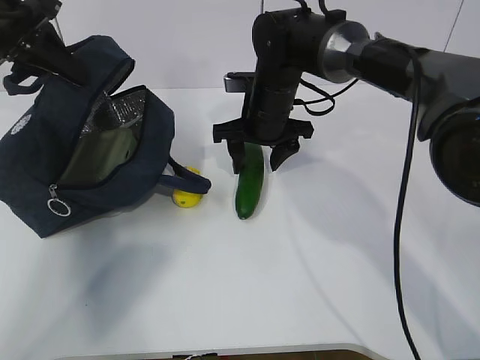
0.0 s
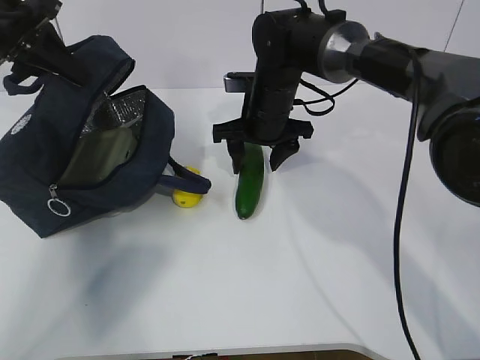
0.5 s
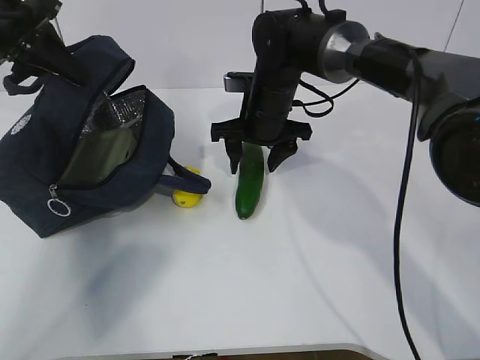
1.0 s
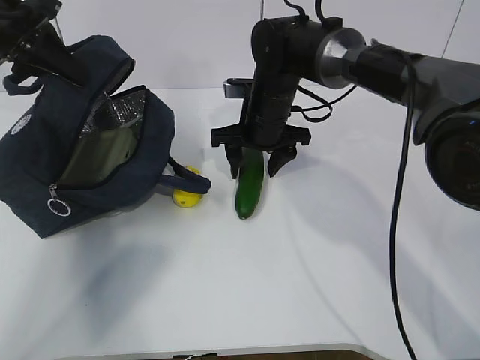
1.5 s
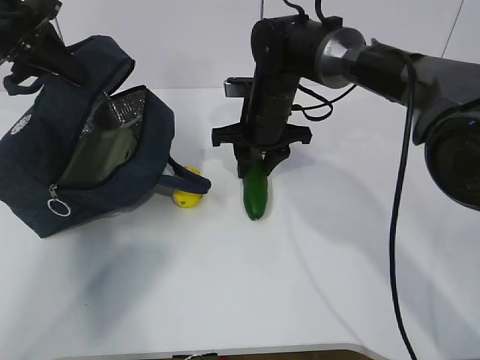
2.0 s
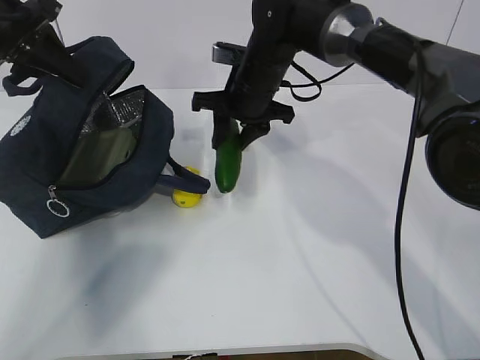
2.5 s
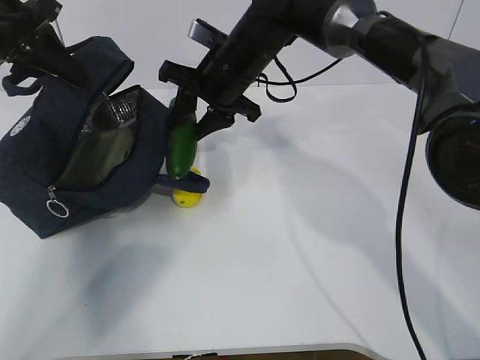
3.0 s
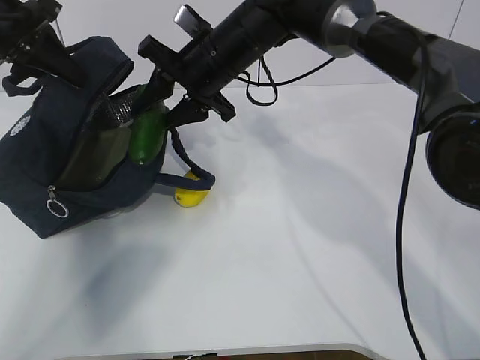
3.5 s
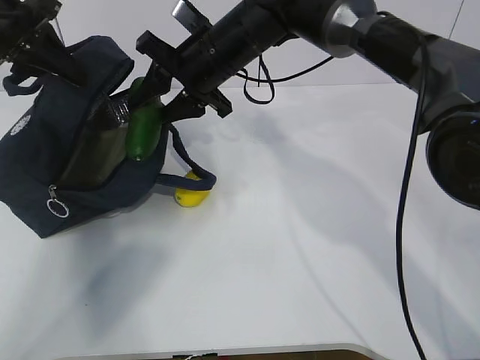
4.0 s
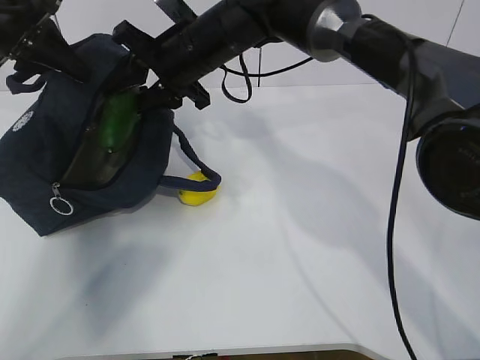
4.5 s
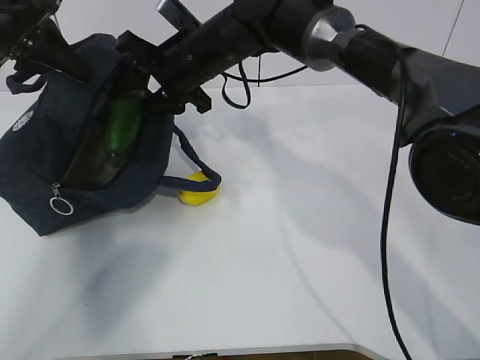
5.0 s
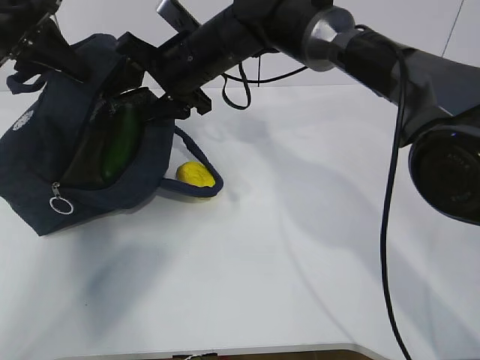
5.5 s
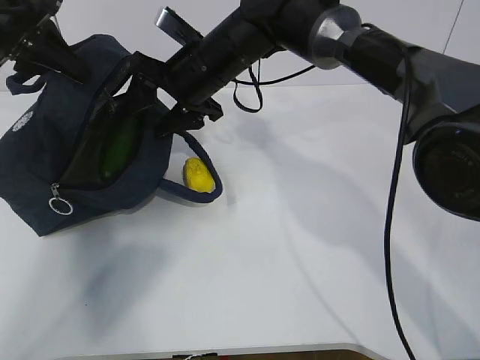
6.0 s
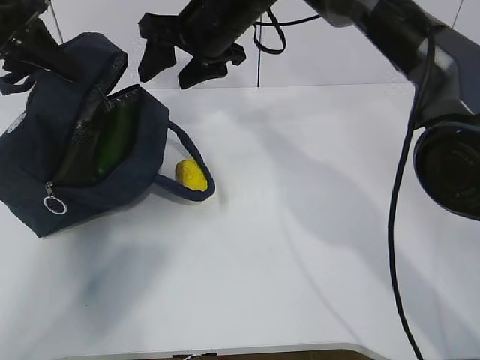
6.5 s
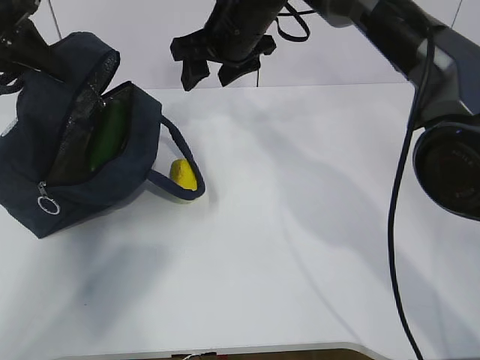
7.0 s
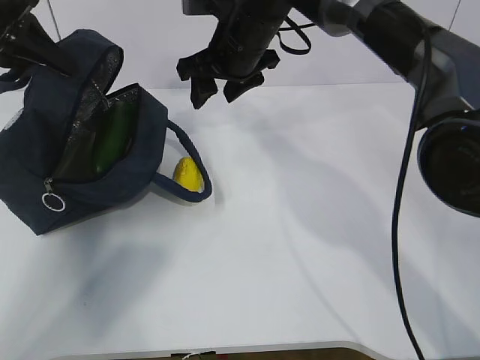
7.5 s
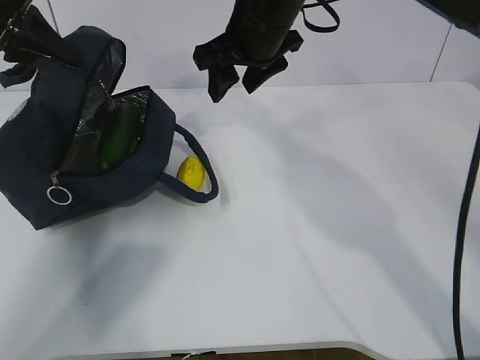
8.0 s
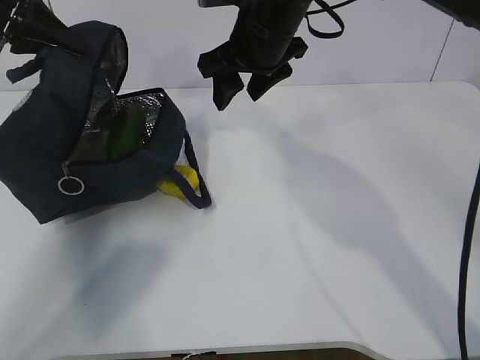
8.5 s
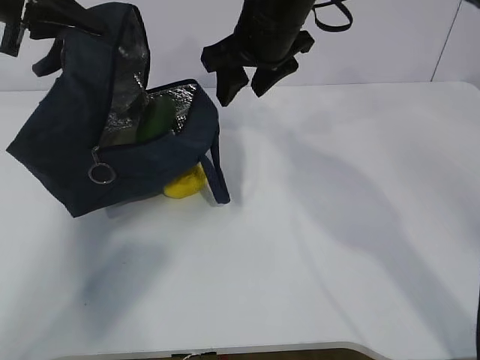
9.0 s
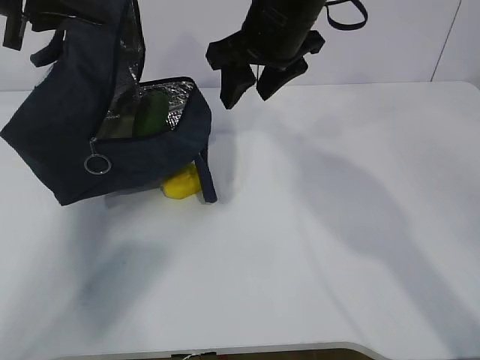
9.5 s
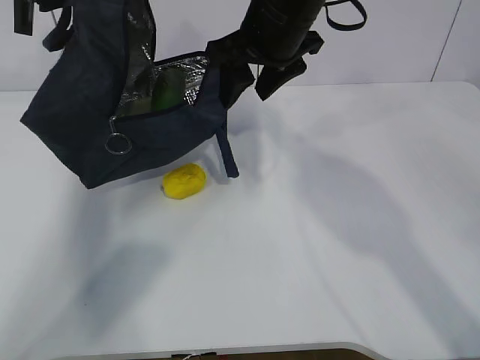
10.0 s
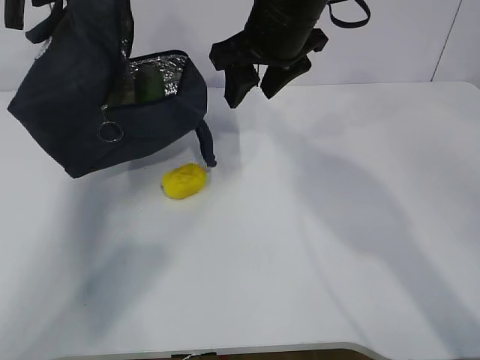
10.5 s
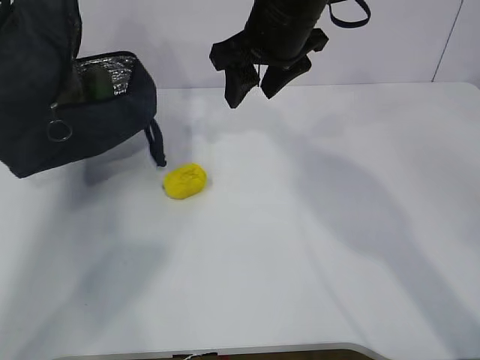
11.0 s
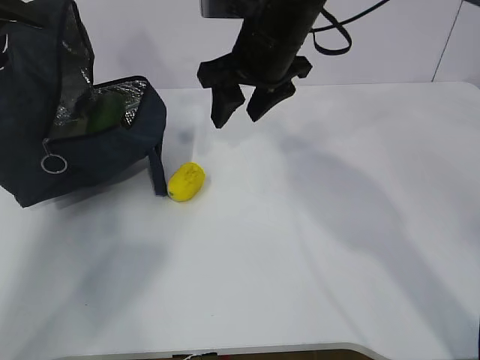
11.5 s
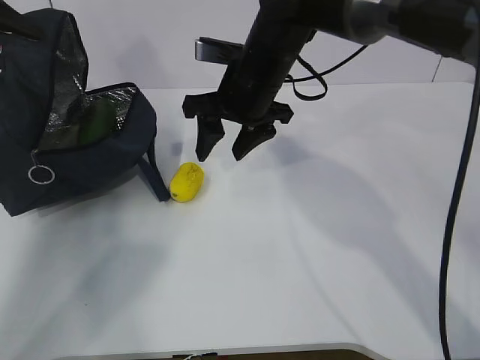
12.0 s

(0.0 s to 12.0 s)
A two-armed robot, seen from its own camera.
Step, 0.0 s - 7.5 s: Grab the lemon with your right hand.
Step, 8.0 s - 9.0 s: Secure the lunch bag with your left hand.
0.0 s - 2.0 s: The right gripper closes.
2.0 s - 4.0 s: The right gripper heads upward and to the left, covering approximately 10 cm.
4.0 s - 6.0 s: The right gripper opens.
6.0 s - 8.0 s: The right gripper is displaced to the right and upward by about 10 cm.
10.0 s - 12.0 s: The left gripper is displaced to the left by roughly 10 cm, while the right gripper moves downward, some 5 cm.

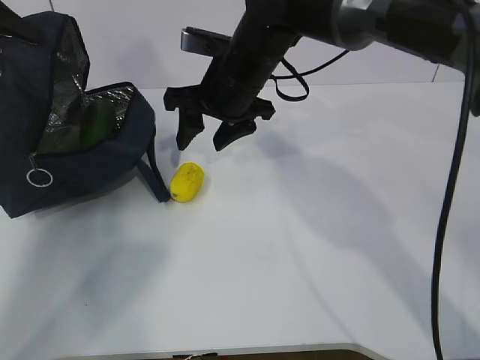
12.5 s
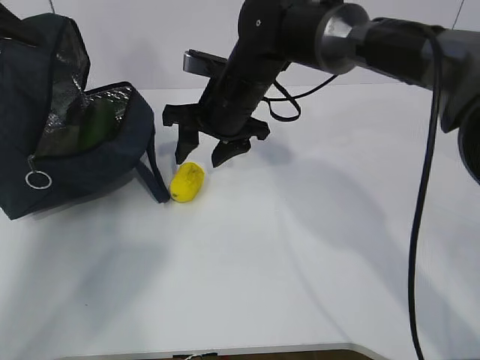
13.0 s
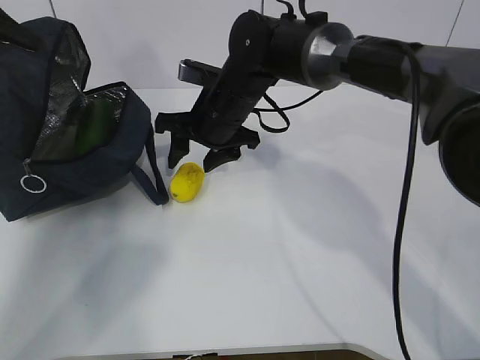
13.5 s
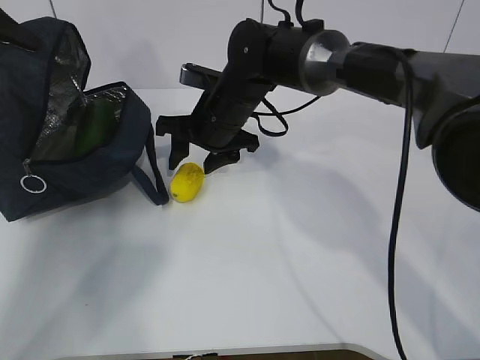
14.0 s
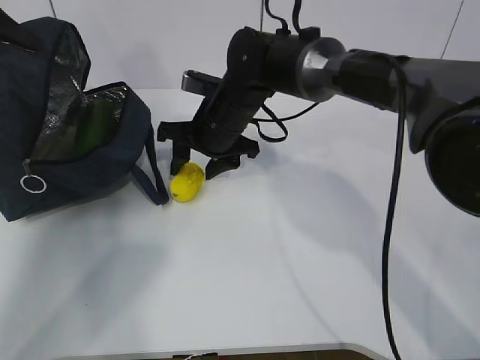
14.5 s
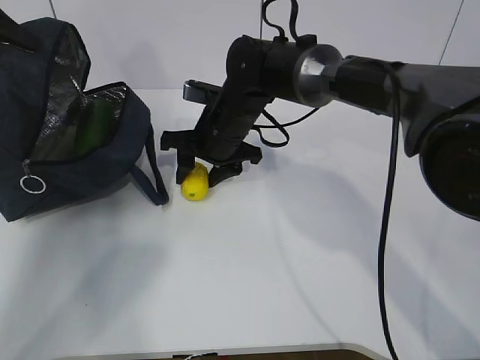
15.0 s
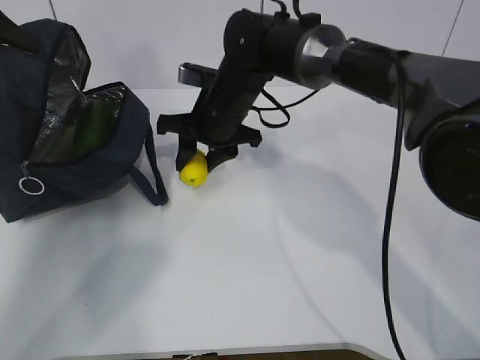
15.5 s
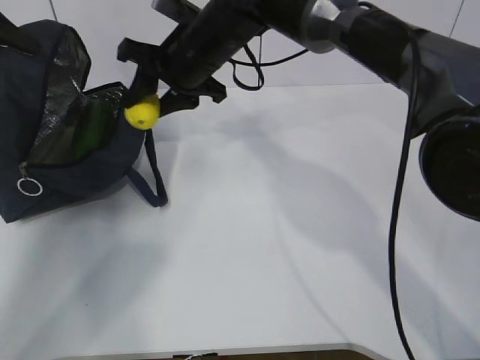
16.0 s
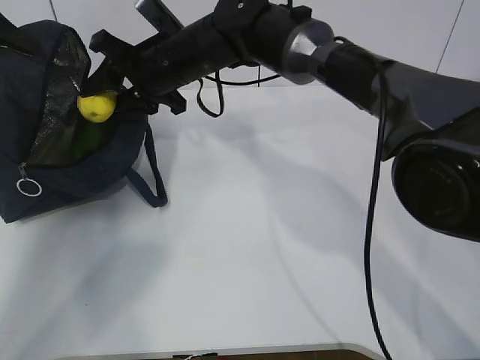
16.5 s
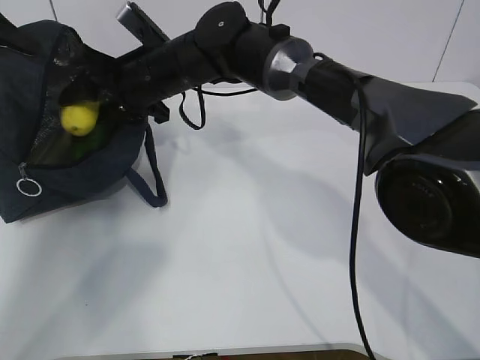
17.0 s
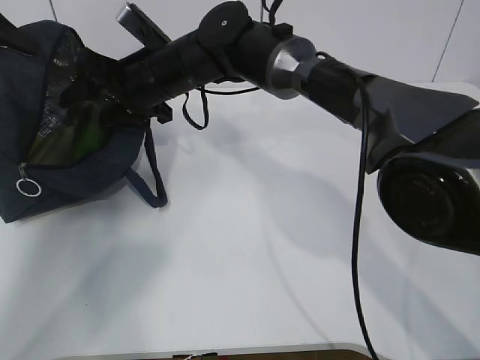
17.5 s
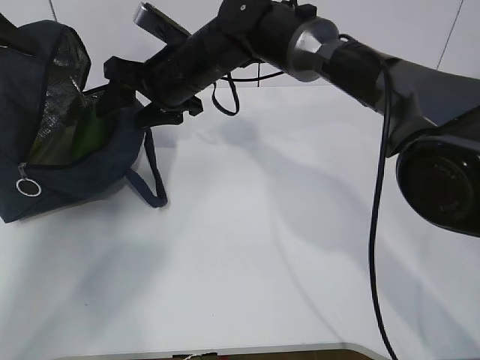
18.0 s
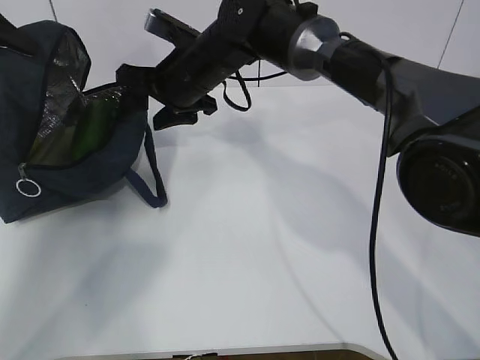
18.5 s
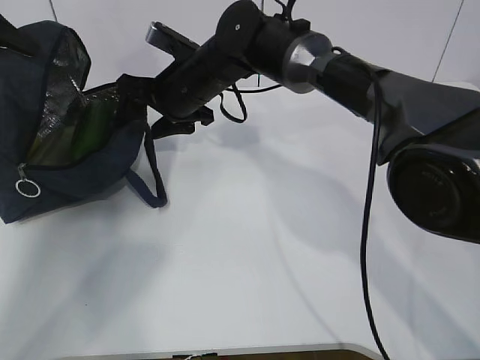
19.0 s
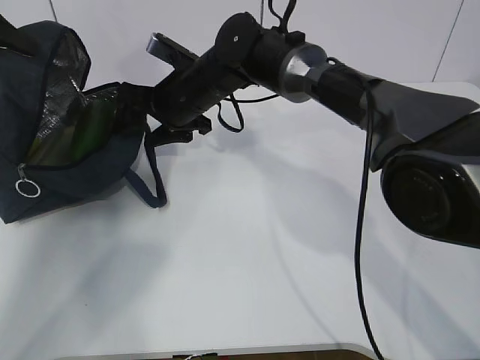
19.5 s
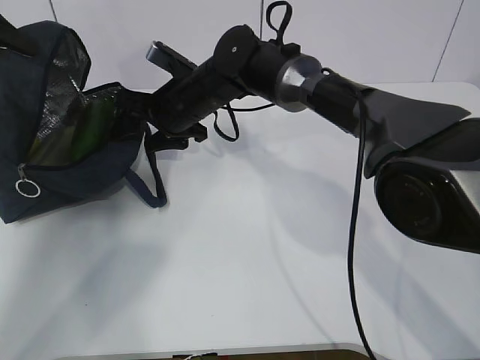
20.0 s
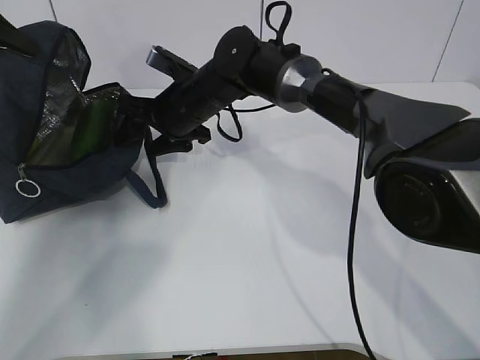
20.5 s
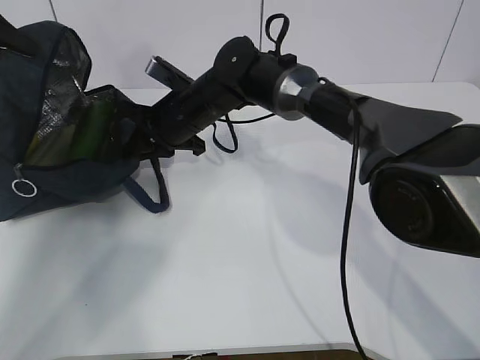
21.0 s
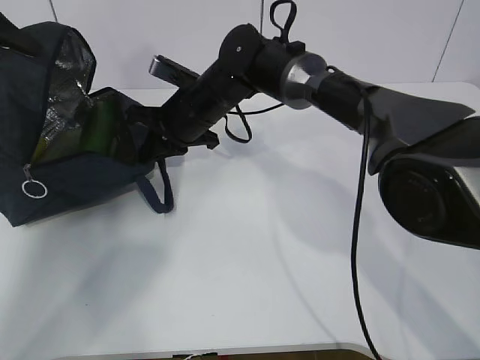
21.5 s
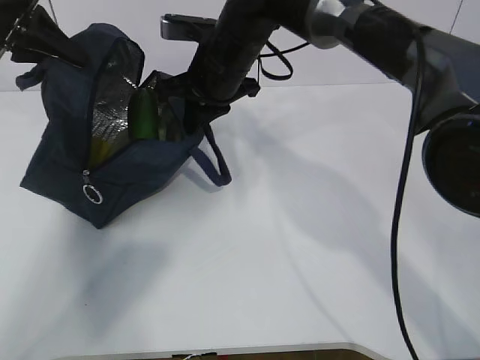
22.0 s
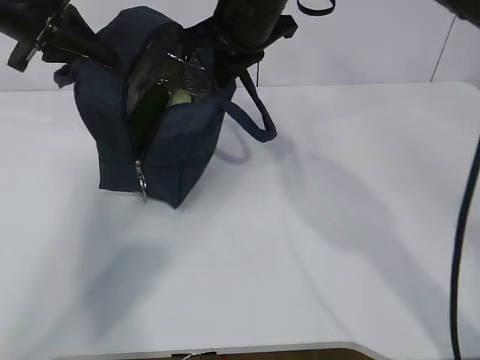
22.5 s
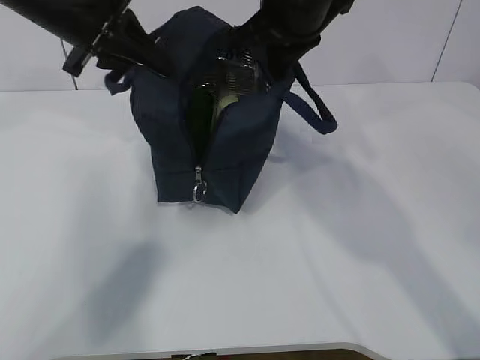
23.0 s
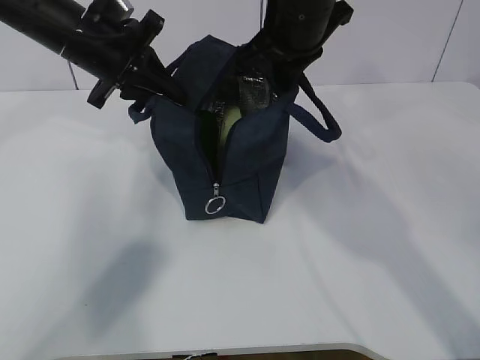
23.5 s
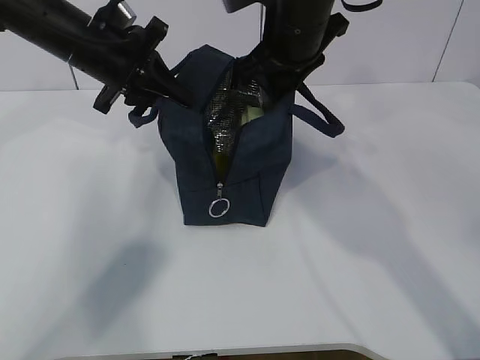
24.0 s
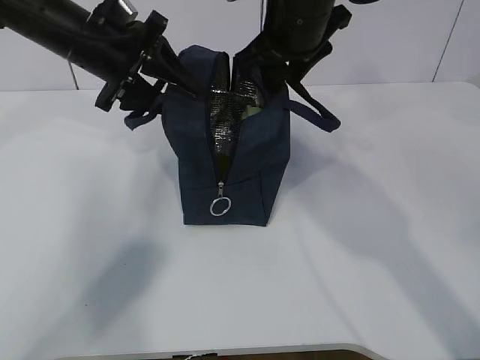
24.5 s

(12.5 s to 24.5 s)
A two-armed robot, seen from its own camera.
Step, 13.0 s - 16.0 s: Move the lunch bag to the right.
12.5 s - 14.5 s: The right gripper shifts roughly 5 cm downward.
14.5 s - 16.5 s: The right gripper shifts roughly 5 cm upward.
16.5 s - 18.5 s: There are only small adjustments of the grippers.
20.5 s - 22.5 s: The left gripper heads to the right, covering roughly 10 cm, while the right gripper is displaced upward and to the right by approximately 15 cm, and closes up.
22.5 s - 24.5 s: The right gripper opens its fingers. The left gripper shifts some 10 cm to the right and downward, and opens.

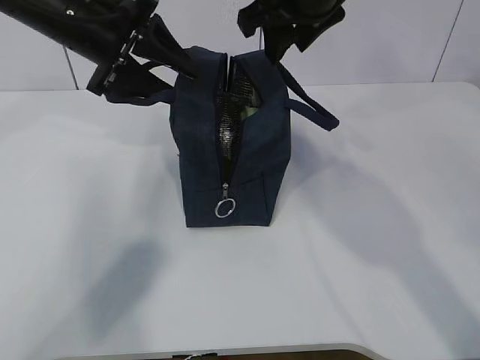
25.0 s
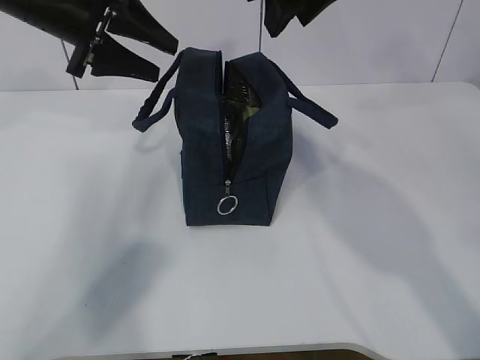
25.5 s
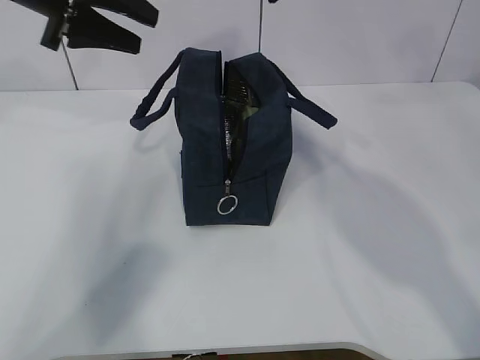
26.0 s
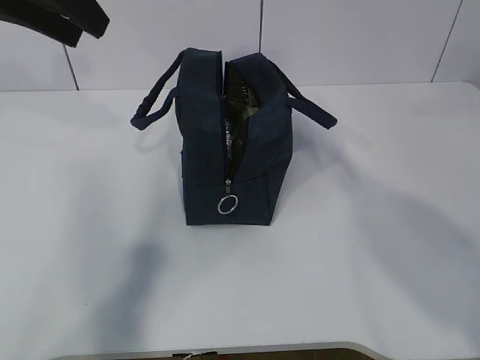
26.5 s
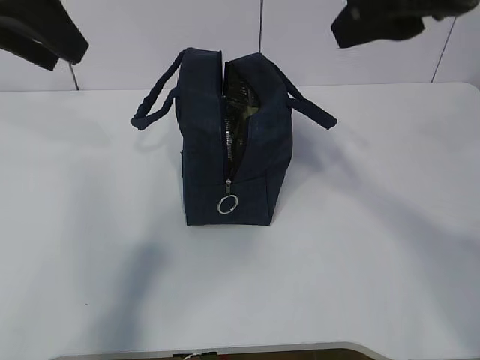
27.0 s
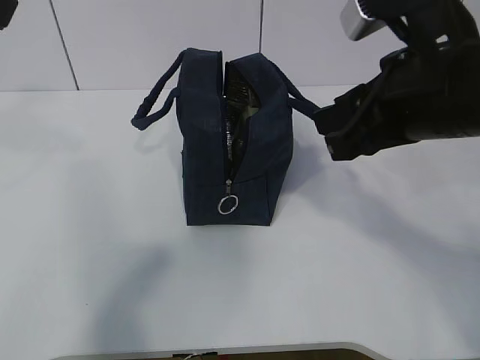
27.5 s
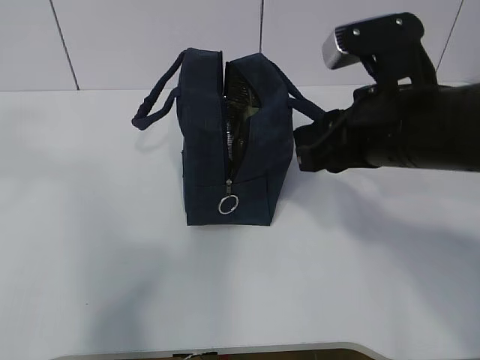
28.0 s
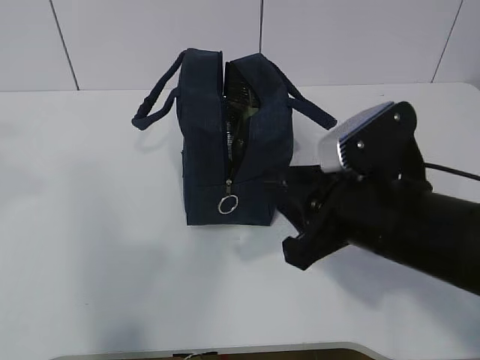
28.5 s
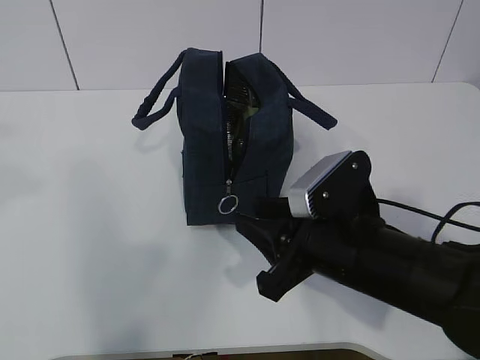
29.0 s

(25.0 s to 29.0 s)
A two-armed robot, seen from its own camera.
25.0 s - 27.0 s: The left gripper travels backward and upward by about 15 cm. The right gripper moves backward and to the right, roughly 15 cm.
27.0 s - 29.0 s: The right gripper moves downward, approximately 25 cm, while the left gripper moves backward, roughly 15 cm.
